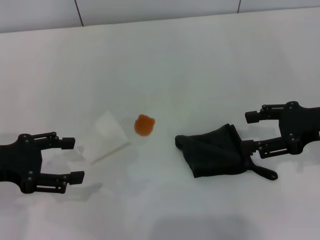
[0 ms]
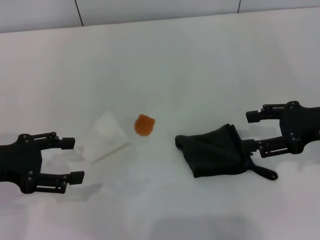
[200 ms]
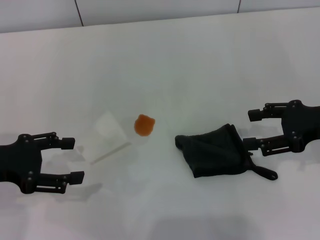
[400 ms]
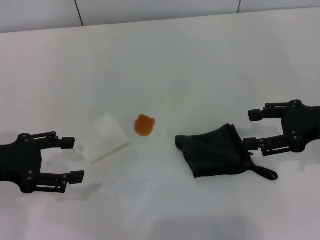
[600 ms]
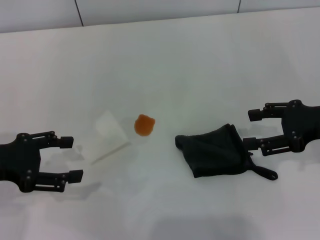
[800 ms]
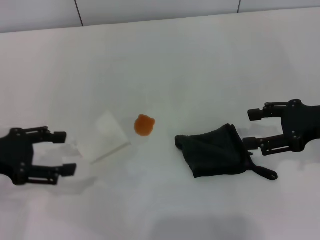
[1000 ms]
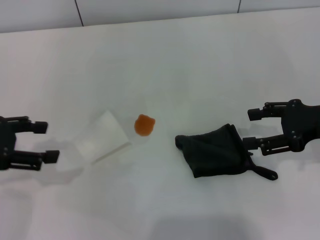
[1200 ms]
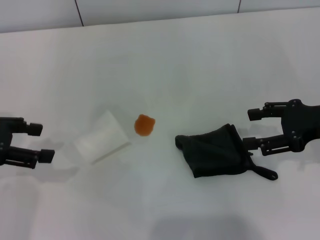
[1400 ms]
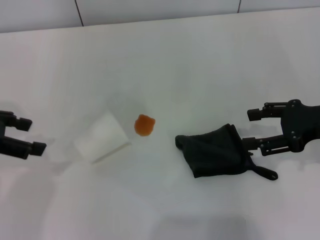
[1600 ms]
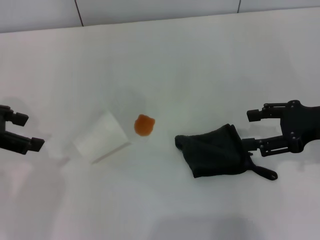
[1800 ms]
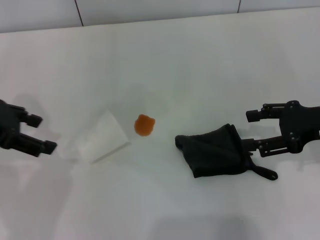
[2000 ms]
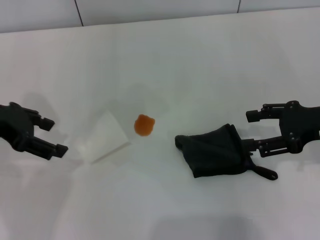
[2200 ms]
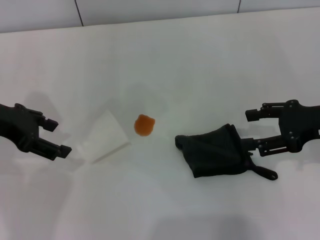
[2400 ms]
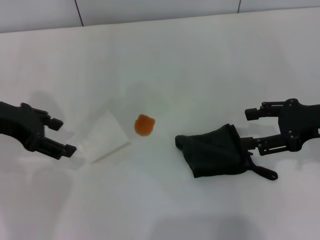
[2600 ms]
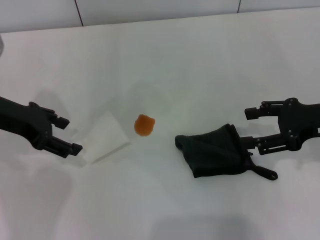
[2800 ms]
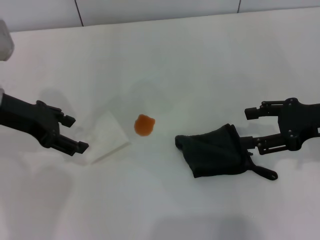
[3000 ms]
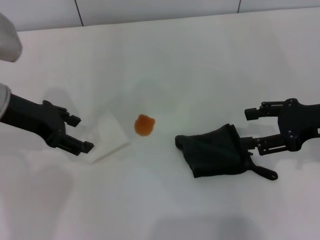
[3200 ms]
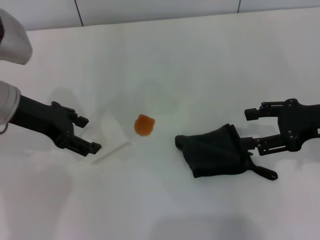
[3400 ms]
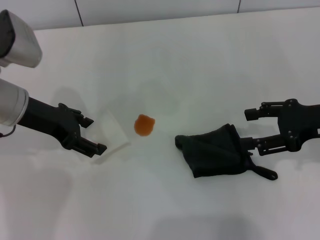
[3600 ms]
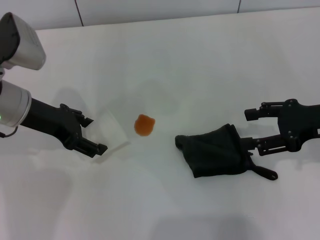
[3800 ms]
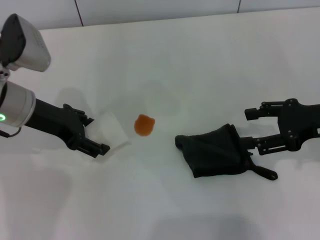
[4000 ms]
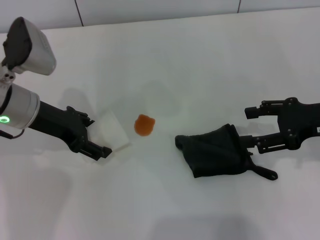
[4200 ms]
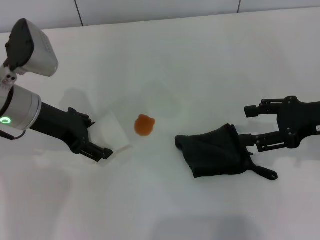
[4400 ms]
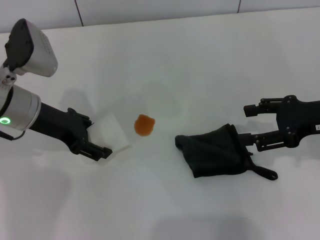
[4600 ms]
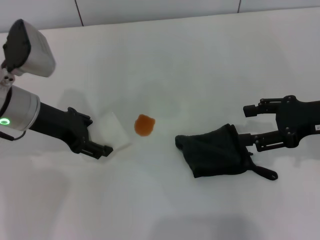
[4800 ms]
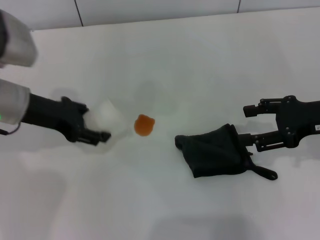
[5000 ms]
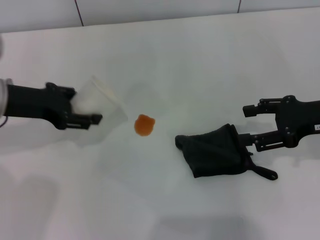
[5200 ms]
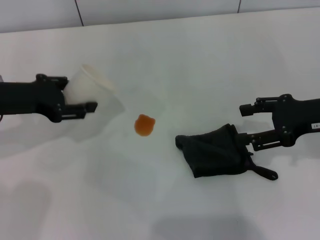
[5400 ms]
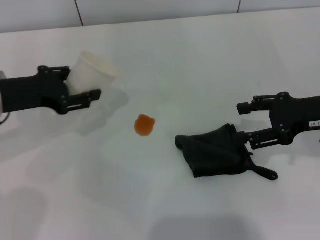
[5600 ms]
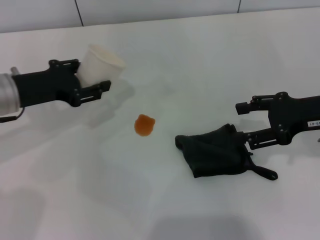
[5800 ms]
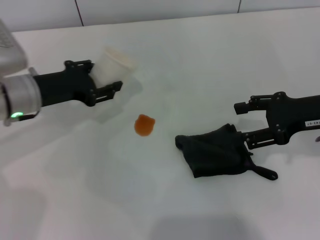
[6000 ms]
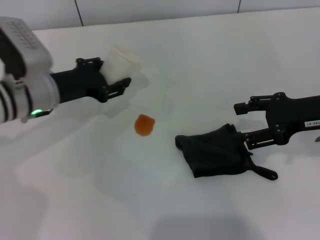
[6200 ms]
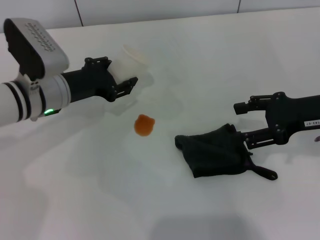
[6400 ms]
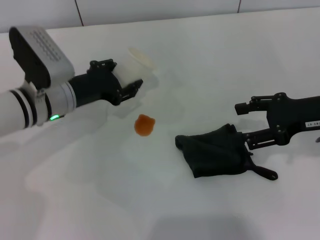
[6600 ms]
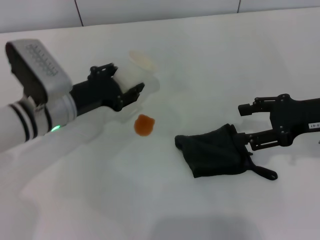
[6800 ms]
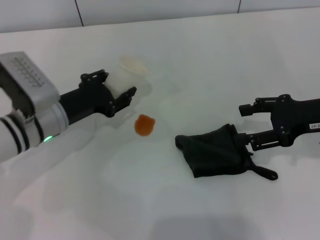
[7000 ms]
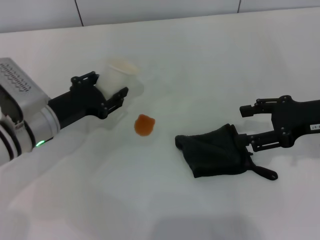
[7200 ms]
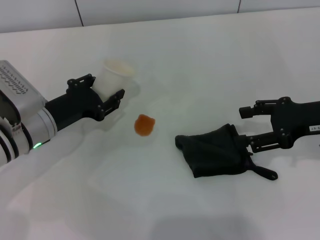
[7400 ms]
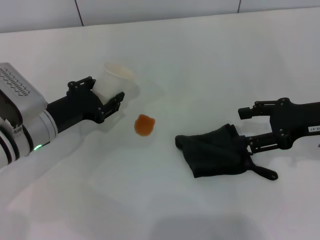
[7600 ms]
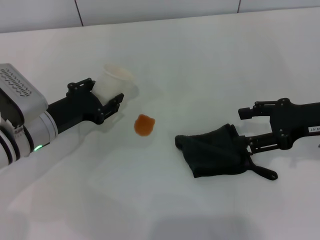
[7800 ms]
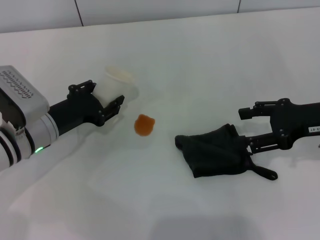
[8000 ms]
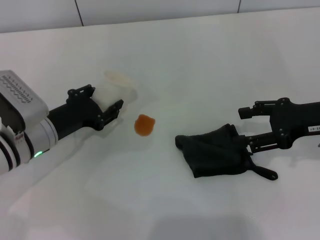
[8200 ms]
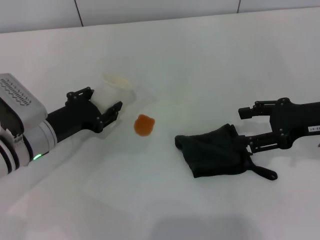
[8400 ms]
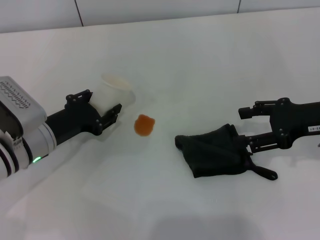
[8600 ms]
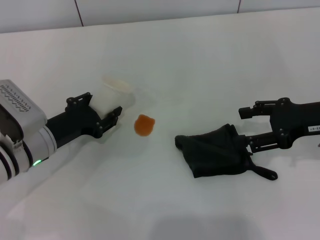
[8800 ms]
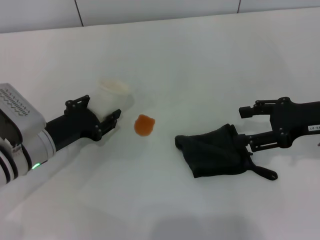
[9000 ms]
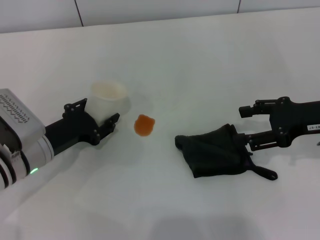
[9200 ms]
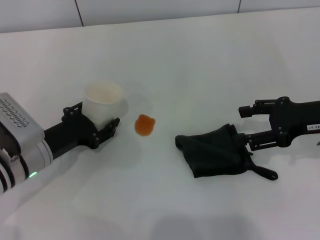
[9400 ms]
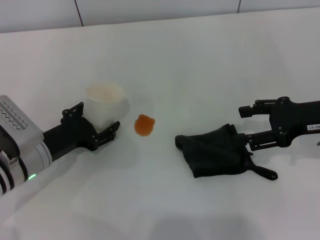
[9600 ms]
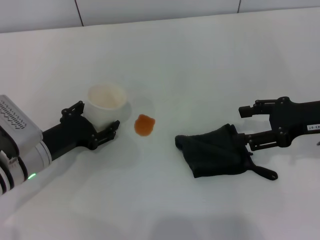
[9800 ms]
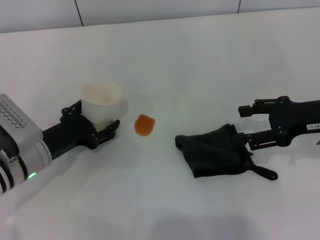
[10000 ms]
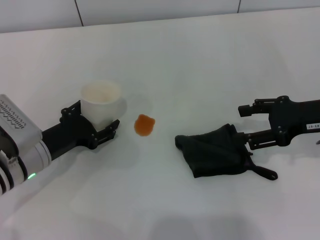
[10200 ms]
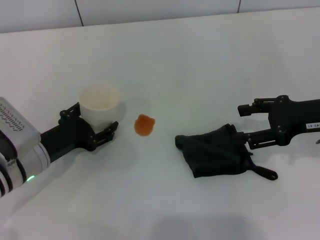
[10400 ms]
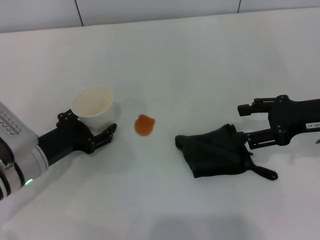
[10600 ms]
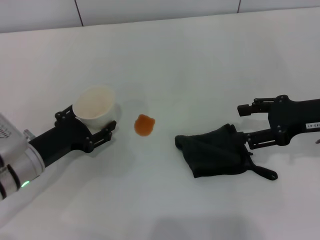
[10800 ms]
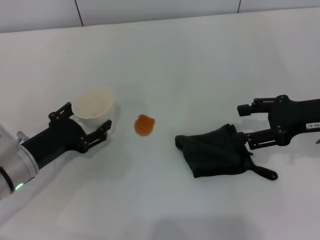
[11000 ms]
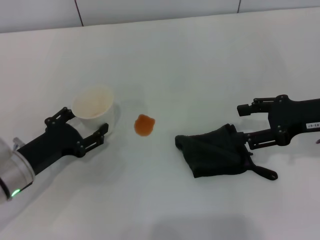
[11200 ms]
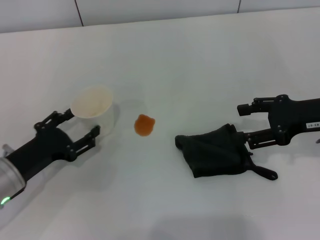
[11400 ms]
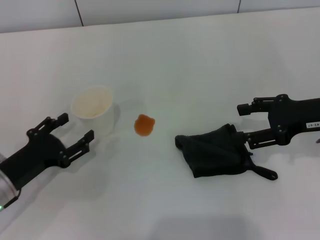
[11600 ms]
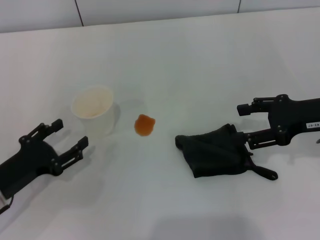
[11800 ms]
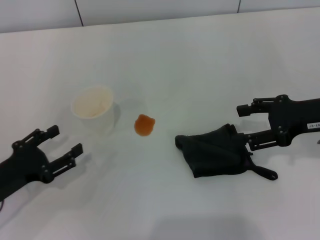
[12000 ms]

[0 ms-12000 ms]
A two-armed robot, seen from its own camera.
Step, 0 ms to 4400 ms: Grasp the paper cup with the left gripper.
Step, 4800 ms to 11800 ms: Stand the paper cup upright with the left gripper.
0 ms to 1600 ms: The left gripper moves upward, roughly 5 cm.
1600 ms to 3000 ms: The left gripper is displaced to the right by roughly 5 cm.
3000 ms to 4400 ms: The left gripper shifts by some 5 cm.
4400 ms to 6000 ms: The left gripper closes up.
6000 ms to 7600 ms: The left gripper shifts about 5 cm downward.
7600 ms to 9000 ms: The grippers stay close to where they were, moving slightly.
9000 ms to 10400 ms: The left gripper opens.
10400 ms to 12000 ms: The left gripper travels to the left and backward by about 10 cm.

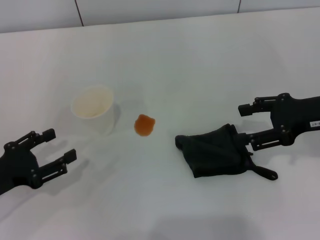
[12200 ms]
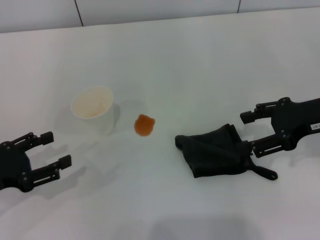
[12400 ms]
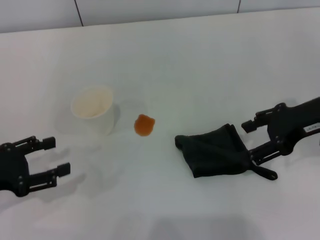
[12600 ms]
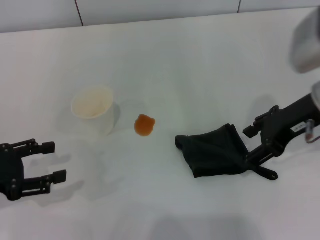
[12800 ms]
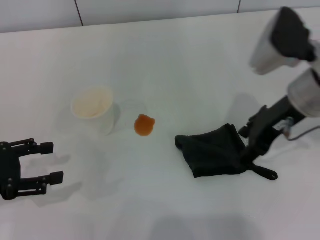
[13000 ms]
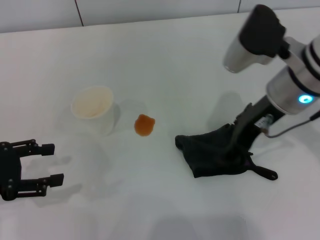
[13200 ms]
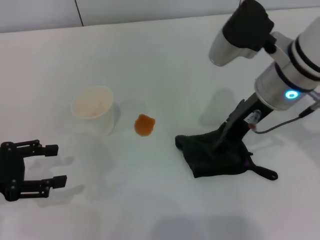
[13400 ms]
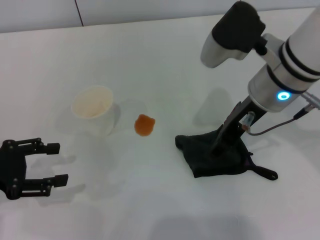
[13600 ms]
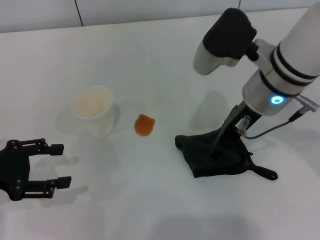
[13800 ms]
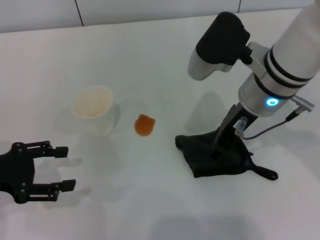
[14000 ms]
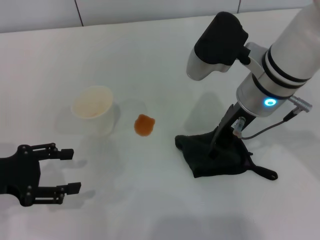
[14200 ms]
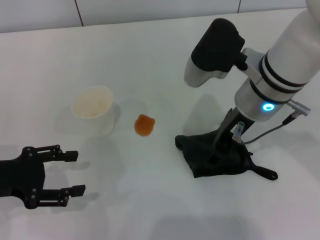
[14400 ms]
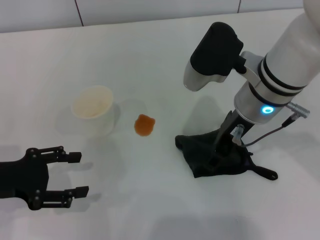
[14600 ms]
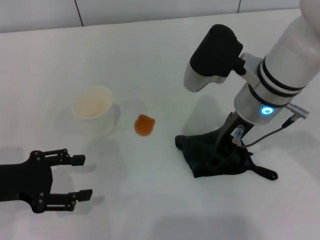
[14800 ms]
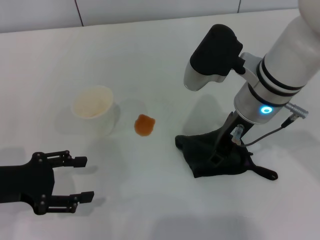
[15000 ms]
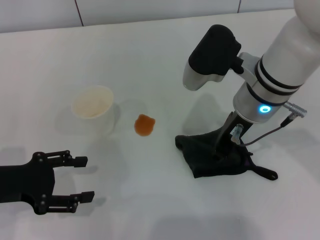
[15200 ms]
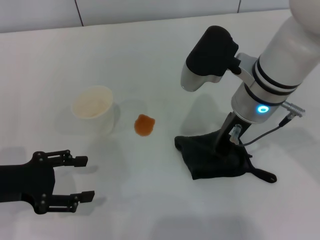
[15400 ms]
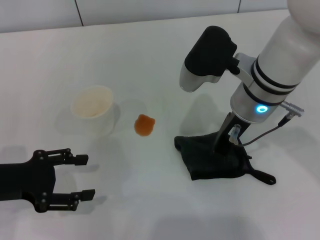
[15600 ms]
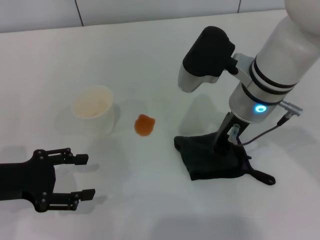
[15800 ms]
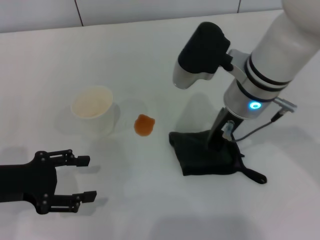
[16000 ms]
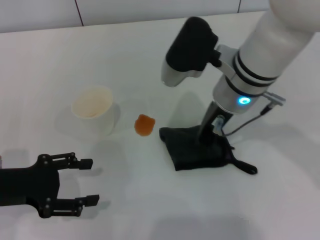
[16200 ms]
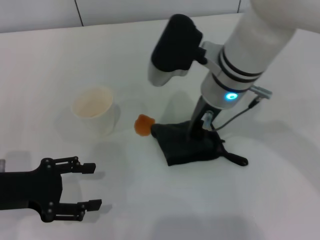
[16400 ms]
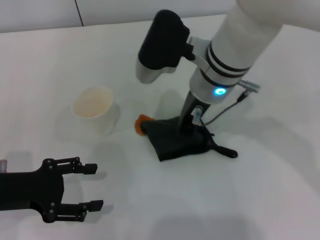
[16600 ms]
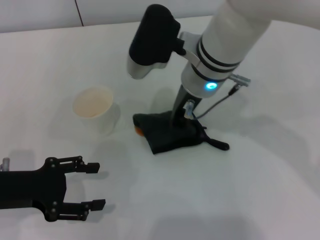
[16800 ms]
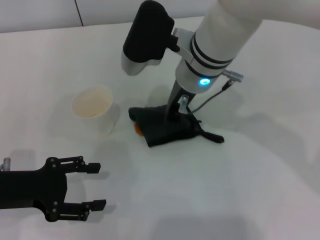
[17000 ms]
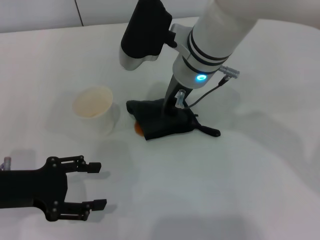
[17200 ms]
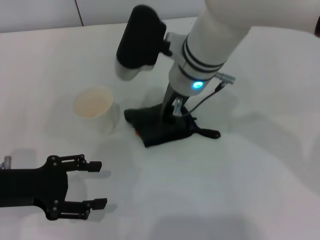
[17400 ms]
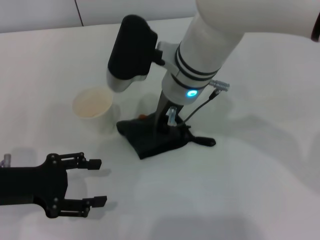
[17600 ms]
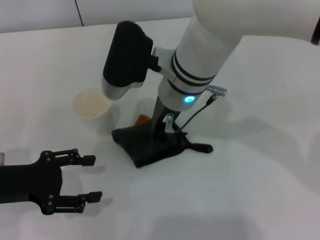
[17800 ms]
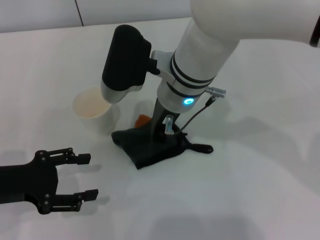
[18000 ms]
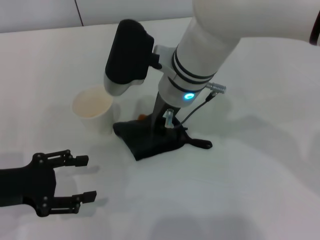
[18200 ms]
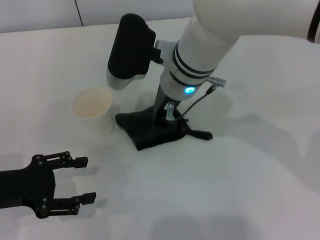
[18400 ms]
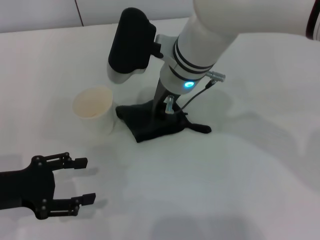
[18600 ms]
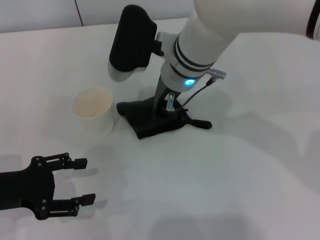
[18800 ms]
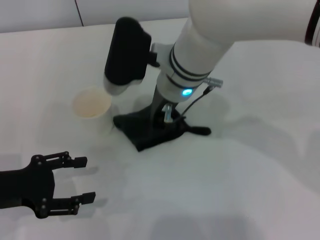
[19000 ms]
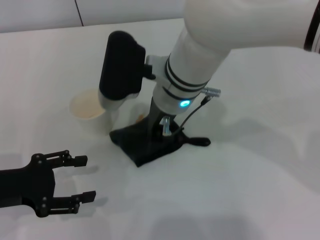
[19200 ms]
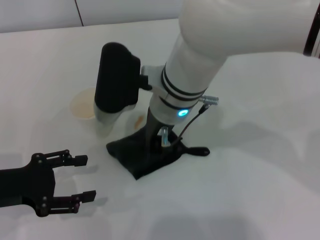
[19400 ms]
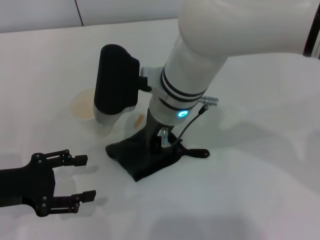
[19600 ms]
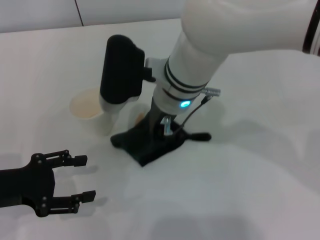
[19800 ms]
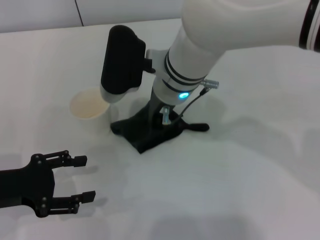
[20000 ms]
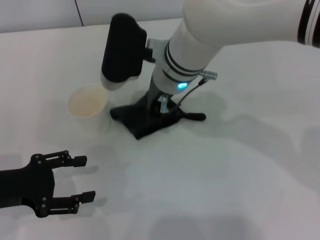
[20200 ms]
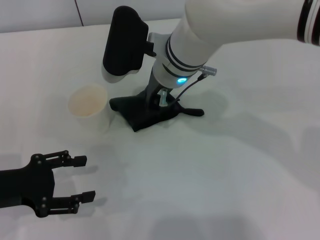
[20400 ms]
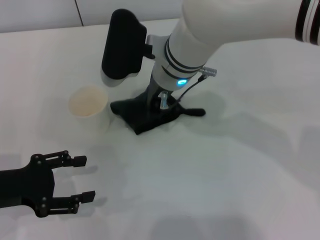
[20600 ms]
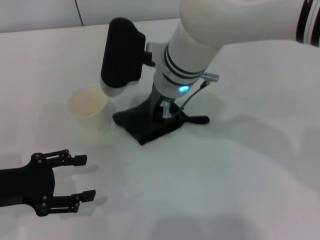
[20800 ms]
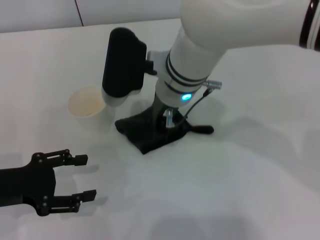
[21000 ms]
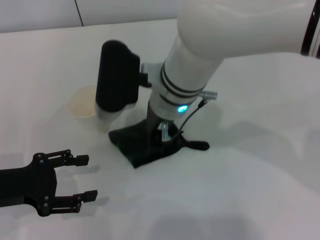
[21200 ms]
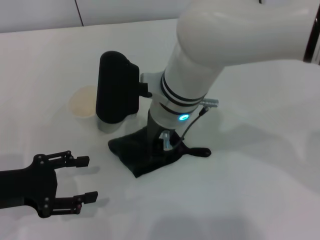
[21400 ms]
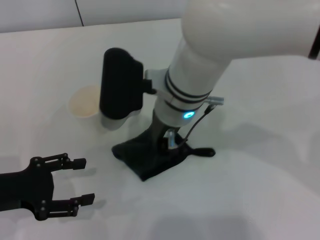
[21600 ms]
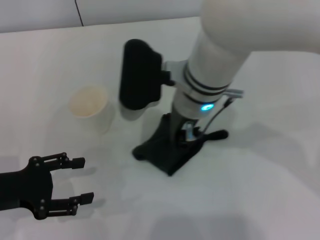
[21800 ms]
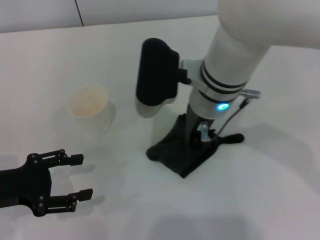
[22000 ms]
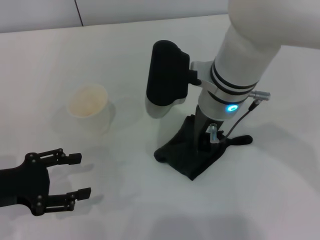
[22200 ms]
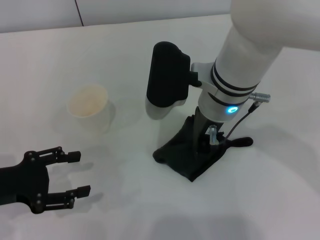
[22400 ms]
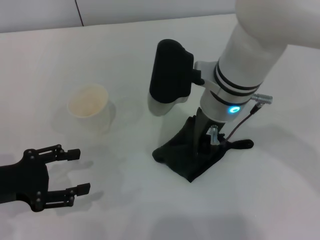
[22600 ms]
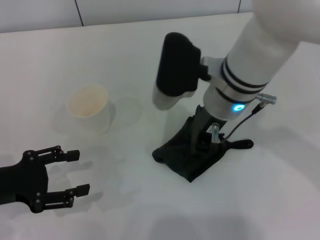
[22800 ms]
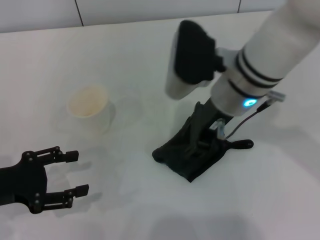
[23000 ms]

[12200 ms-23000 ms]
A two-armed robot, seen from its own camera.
Step, 12200 ms to 15800 ms: Grasp the rag with the right gripper.
Step, 16000 ms to 21800 ms: Wipe the stains off the table with the right gripper.
12200 ms to 13800 ms: The right gripper goes approximately 15 cm to the left, while the left gripper goes some 5 cm upward.
13800 ms to 15200 ms: There are only small adjustments of the grippers.
15200 ms to 16800 ms: The right gripper goes approximately 5 cm to the left, and closes up.
16800 ms to 21400 ms: The grippers stay close to where they were, moving slightly.
21400 ms to 23000 ms: The right gripper travels to the right by roughly 10 cm.
